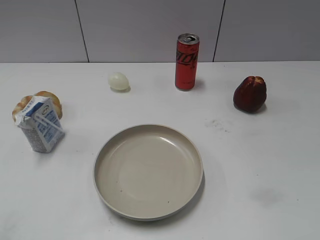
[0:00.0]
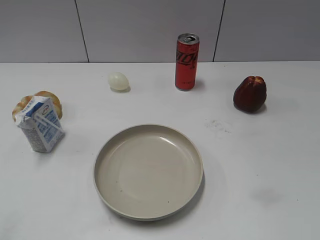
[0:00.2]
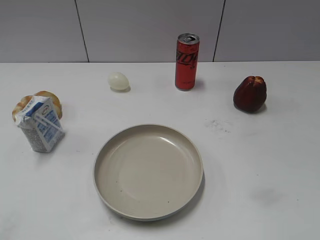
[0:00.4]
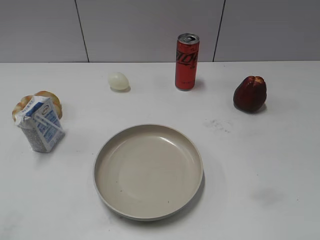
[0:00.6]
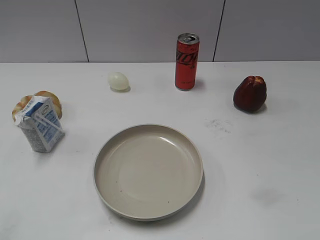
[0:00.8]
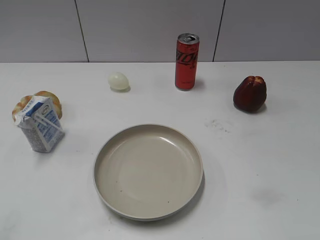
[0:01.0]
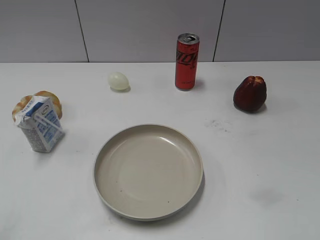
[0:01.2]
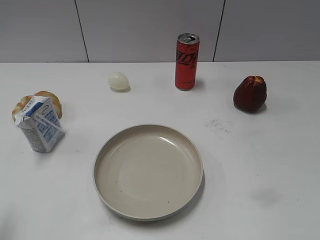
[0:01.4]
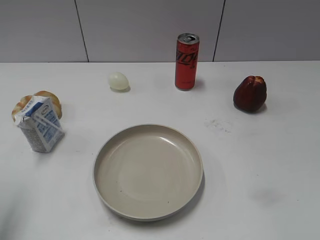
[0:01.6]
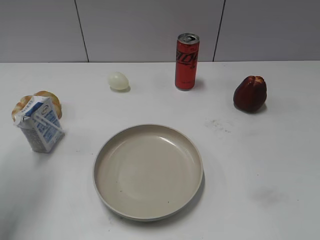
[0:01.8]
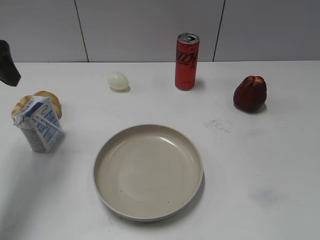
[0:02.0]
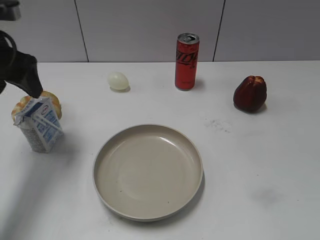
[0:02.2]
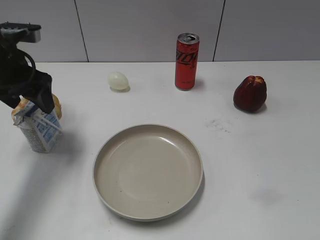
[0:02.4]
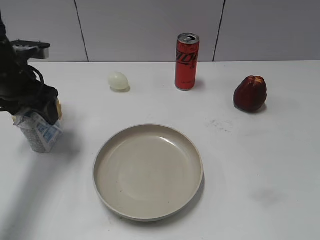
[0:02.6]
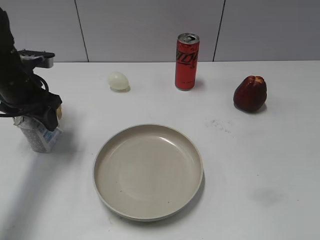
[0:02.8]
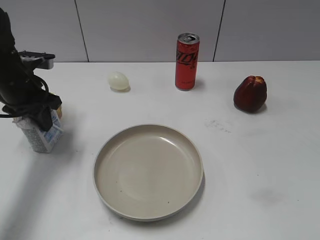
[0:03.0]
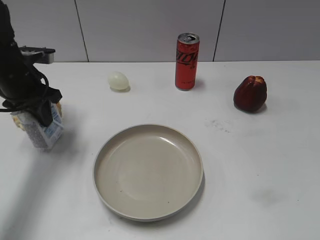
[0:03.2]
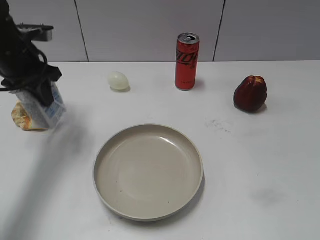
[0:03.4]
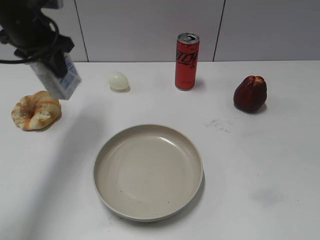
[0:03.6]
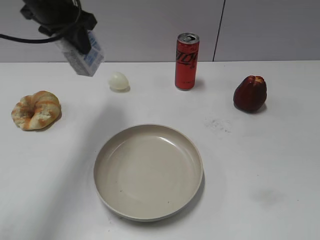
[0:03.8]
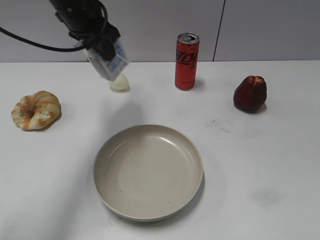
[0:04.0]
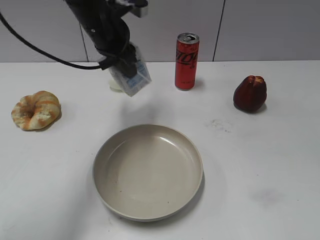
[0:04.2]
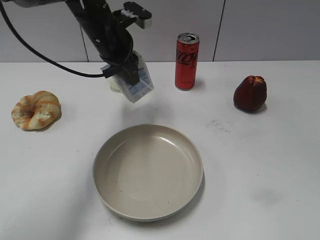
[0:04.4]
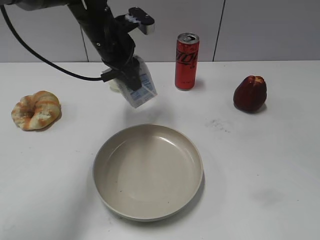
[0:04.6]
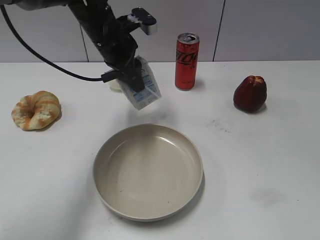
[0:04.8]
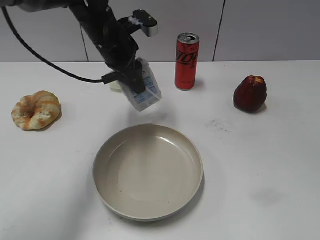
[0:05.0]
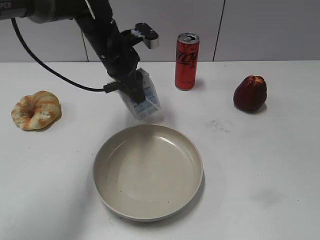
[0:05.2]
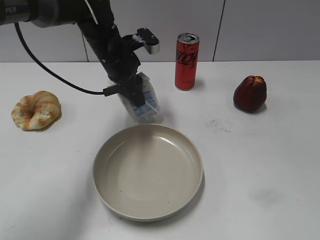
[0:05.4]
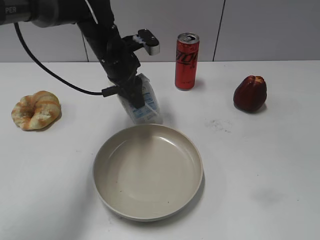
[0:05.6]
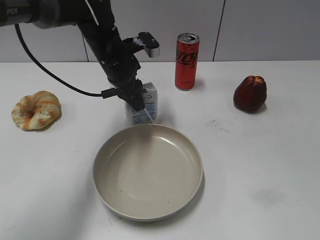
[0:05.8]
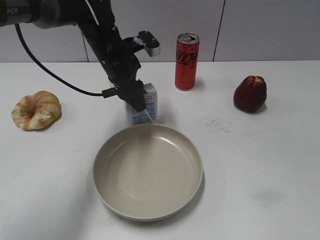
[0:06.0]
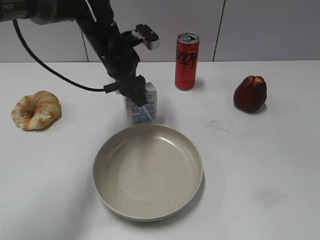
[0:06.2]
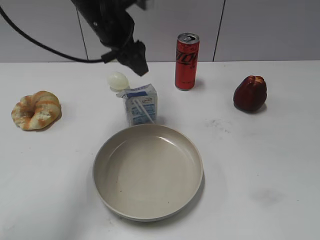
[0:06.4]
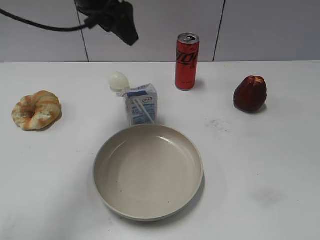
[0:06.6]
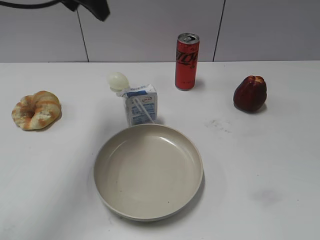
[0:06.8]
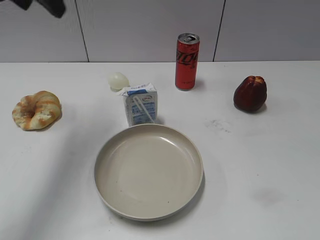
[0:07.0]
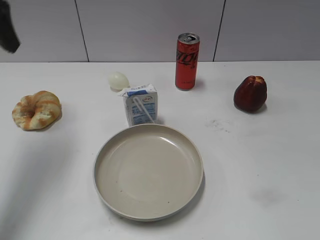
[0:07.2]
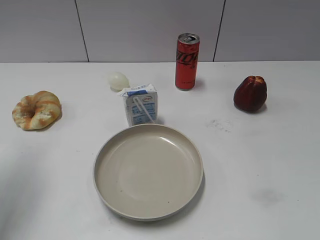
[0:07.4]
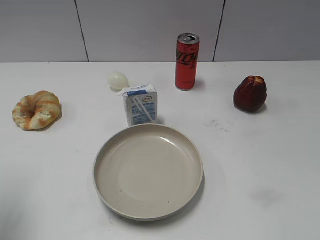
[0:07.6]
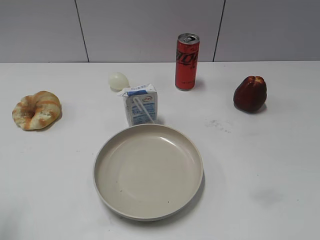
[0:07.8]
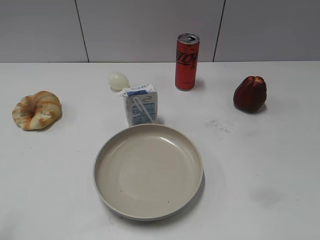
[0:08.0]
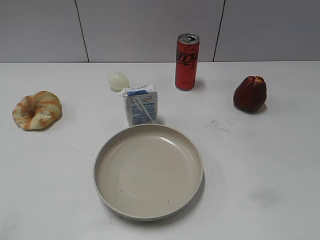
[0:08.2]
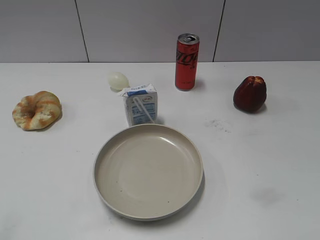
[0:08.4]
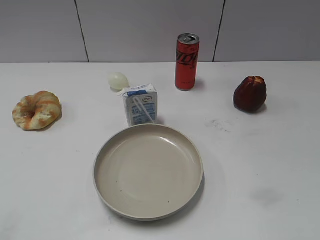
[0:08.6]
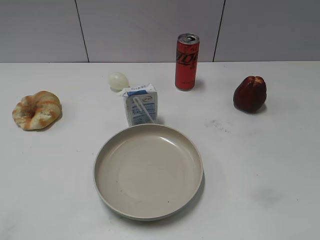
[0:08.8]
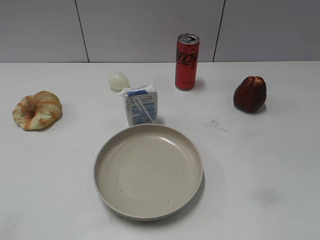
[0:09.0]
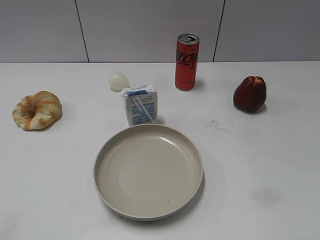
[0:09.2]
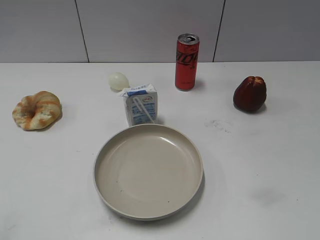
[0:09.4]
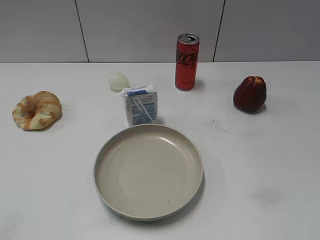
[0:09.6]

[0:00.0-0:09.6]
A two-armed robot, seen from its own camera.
Step, 0:01.0 to 0:03.2: Grasp the milk with left gripper.
Step, 0:03.4 to 0:06.2: Place the milk on the table with left gripper.
0:01.6 to 0:03.2: The left gripper goes some 20 cm forward, downward and to the right, and closes.
0:03.2 to 0:04.8: The left gripper moves to the right, roughly 15 cm.
0:04.8 to 0:06.4: The left gripper heads upward, covering some 5 cm, and opens.
0:06.4 to 0:08.0: The left gripper travels backward and to the left by approximately 40 cm.

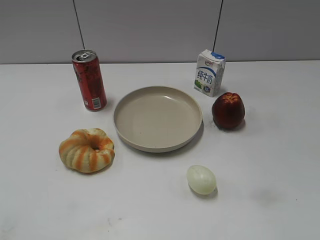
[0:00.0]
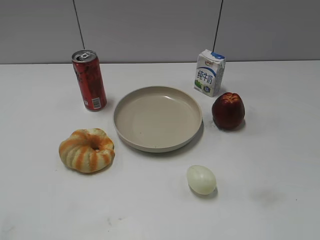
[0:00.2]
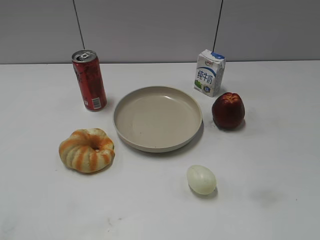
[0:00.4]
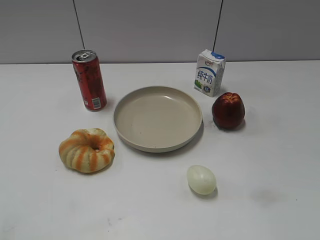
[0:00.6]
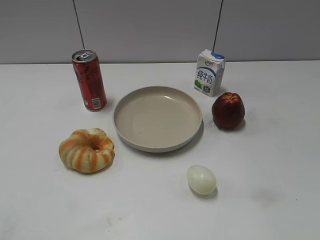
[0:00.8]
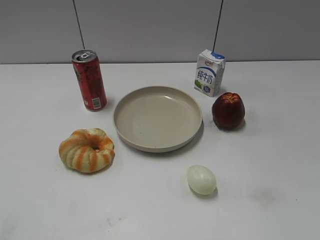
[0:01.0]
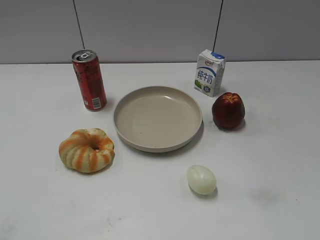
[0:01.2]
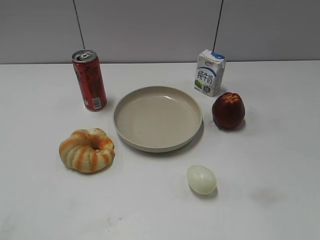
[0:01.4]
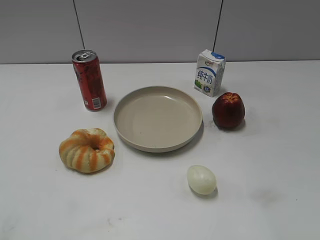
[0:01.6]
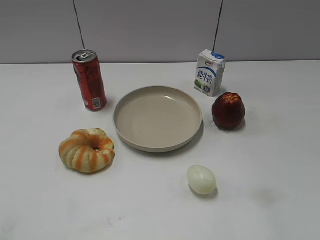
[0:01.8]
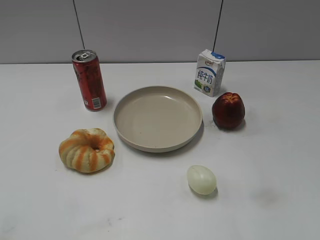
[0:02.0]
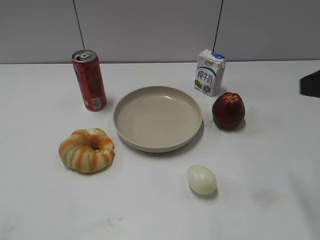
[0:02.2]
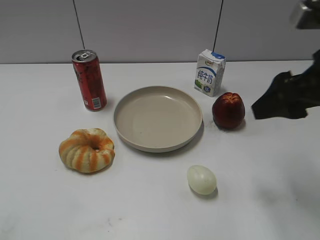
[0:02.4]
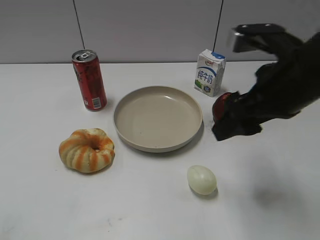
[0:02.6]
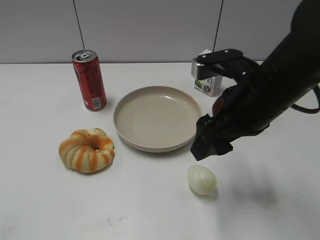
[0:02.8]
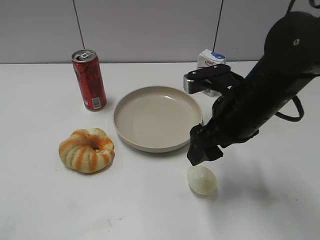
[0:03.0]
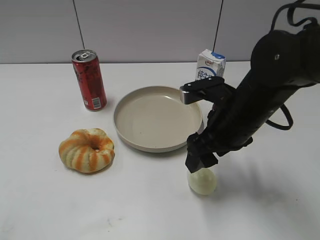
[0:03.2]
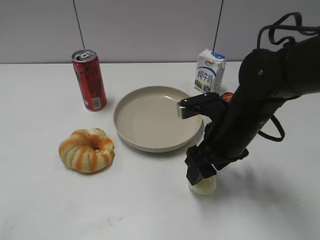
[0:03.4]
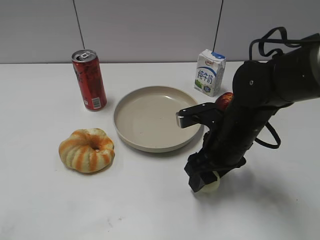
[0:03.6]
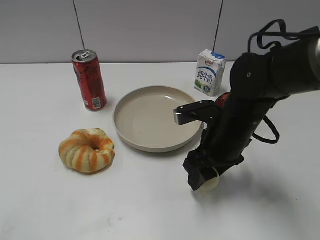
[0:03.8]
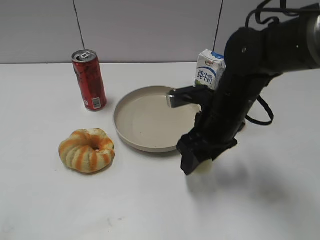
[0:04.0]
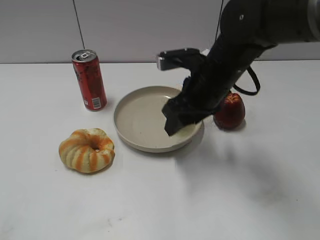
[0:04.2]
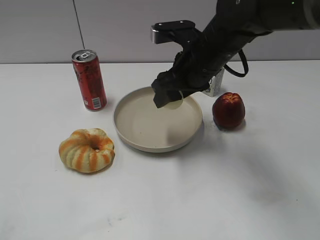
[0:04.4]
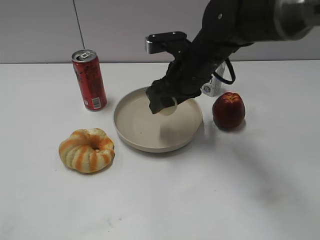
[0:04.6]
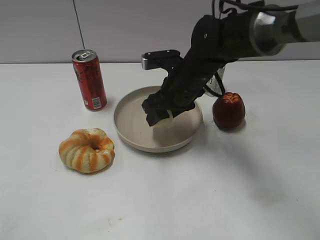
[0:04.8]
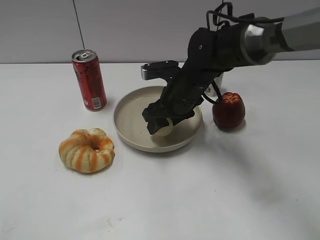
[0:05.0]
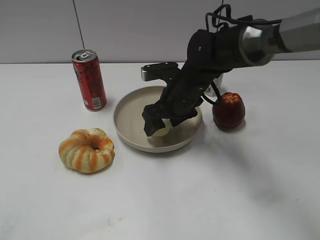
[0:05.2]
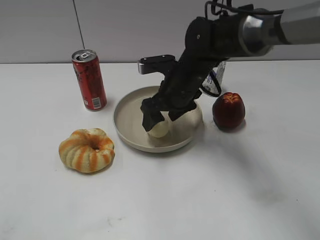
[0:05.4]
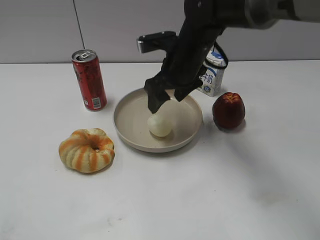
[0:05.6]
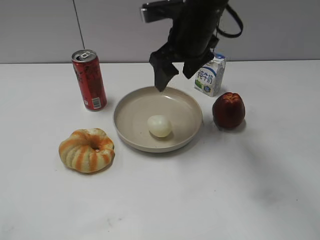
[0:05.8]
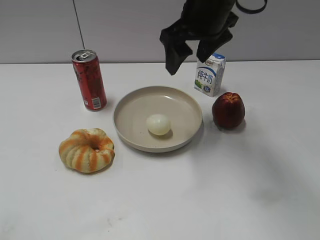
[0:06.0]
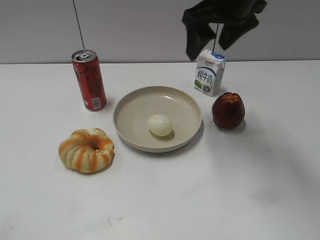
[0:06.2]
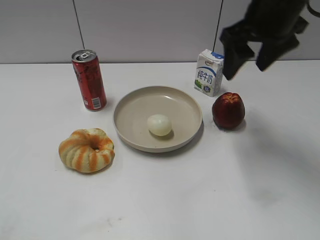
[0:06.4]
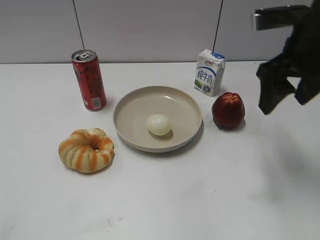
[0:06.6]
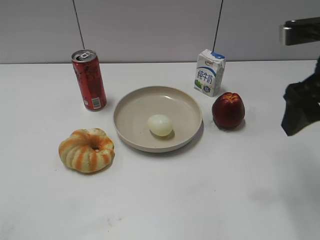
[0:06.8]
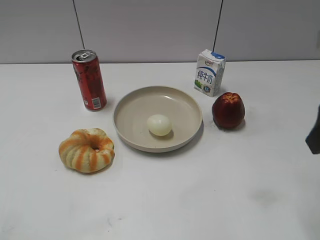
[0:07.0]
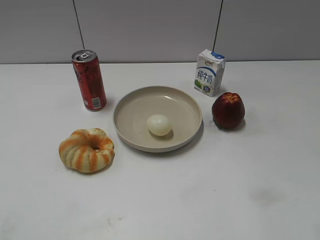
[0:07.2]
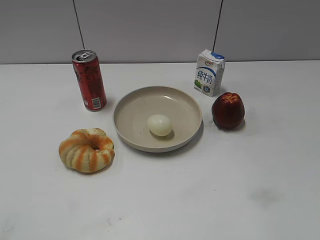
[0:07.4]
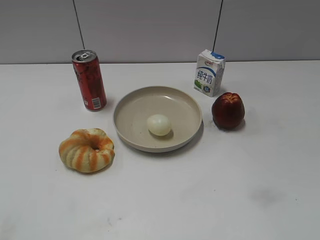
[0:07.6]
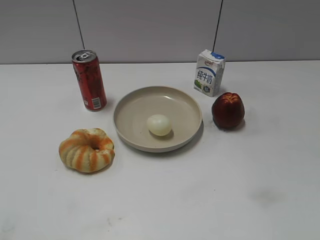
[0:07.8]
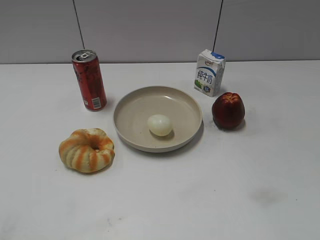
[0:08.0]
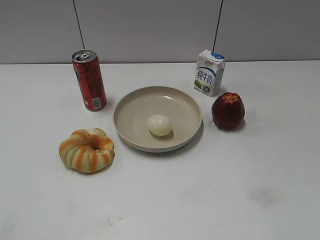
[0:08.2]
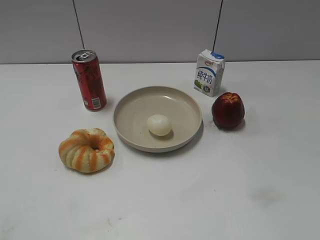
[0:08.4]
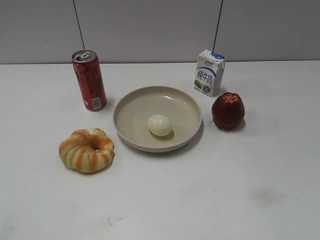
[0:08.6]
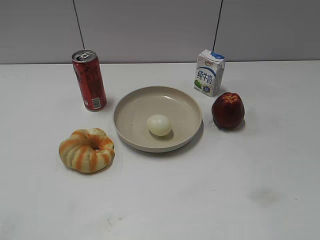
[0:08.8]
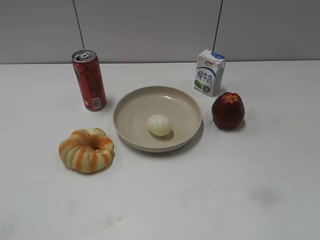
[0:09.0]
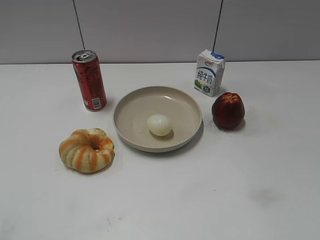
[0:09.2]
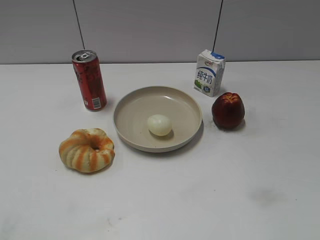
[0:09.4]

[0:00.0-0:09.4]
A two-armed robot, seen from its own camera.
Step, 0:01.2 to 0:03.8: Grasp the egg with right gripper.
Step, 0:04.0 to 0:05.4: Place the egg on the plate with right gripper.
0:01.6 to 0:03.2: The right gripper is displaced forward, to the left and downward by some 30 cm.
0:03.2 to 0:04.8: The right gripper is displaced forward and to the left by some 10 cm, and closes.
0:04.8 to 0:06.2: The right gripper travels upward by about 15 cm, and opens its fingers.
0:06.2 to 0:07.8: The right gripper travels backward and to the right by about 40 cm.

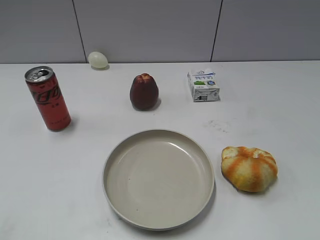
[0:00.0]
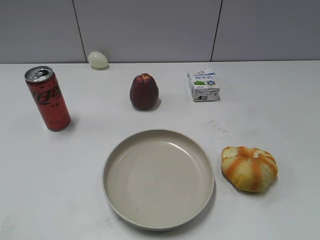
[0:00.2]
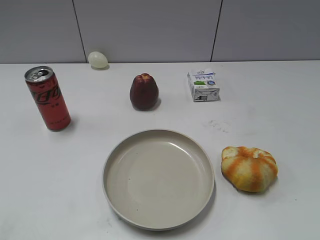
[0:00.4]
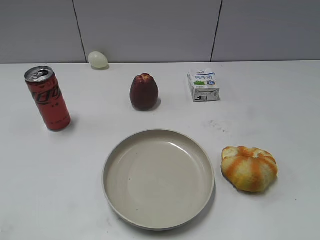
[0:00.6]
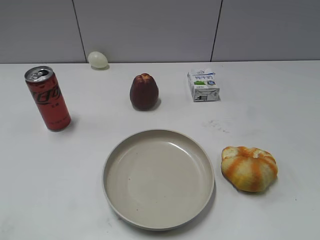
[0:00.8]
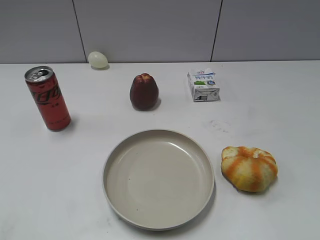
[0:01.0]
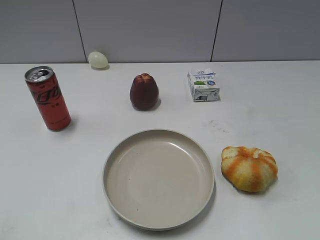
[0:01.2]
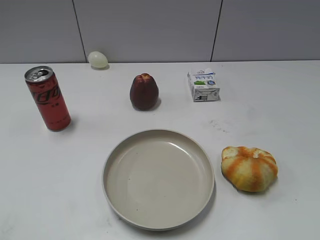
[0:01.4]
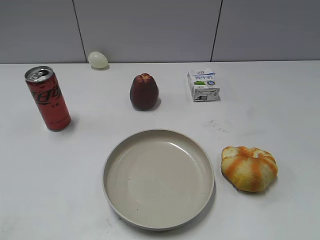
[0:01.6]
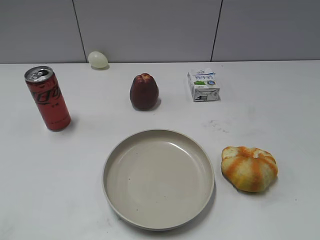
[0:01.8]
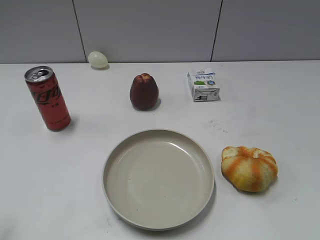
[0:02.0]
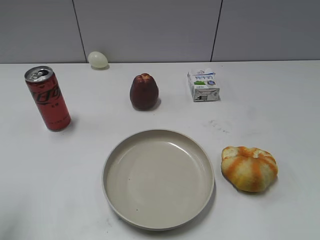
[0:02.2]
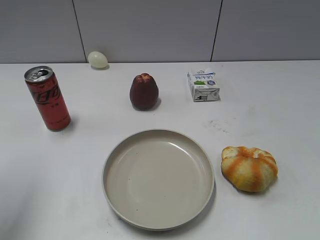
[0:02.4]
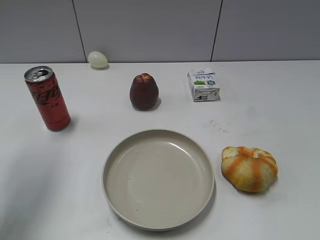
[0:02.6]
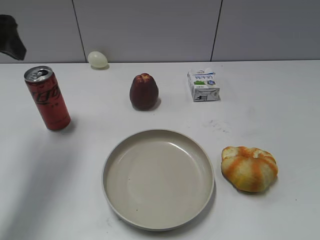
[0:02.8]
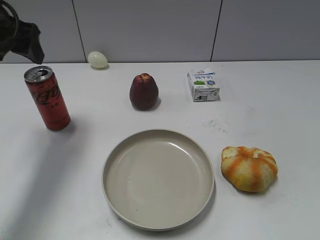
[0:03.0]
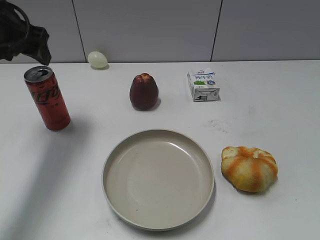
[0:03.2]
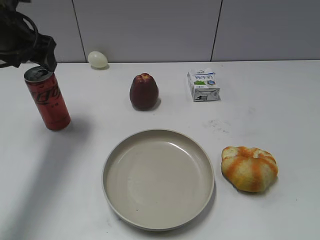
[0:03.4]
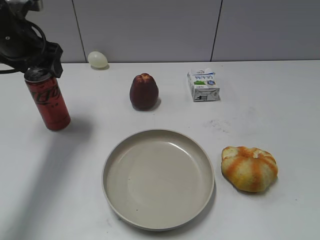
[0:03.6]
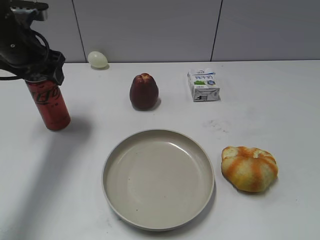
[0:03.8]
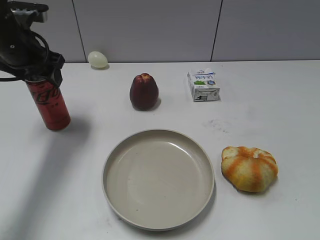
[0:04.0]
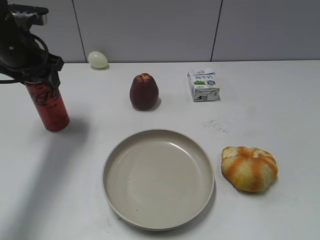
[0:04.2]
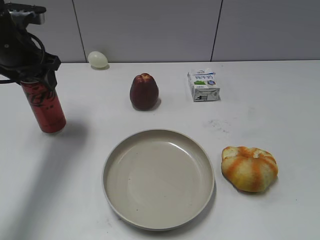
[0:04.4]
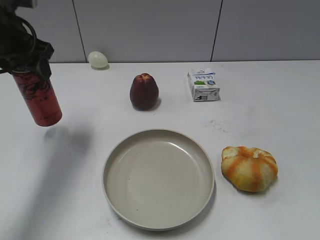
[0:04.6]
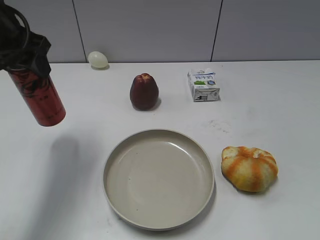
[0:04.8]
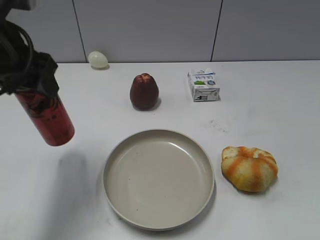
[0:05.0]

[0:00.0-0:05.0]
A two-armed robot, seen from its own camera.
Step, 0:01.6 to 0:04.2: Grasp the cola with left gripper.
0:01.6 to 0:03.4: The left gripper shifts roughly 35 cm forward, and opens its fingers.
0:03.4 to 0:05.0: The left gripper moves backward, some 10 cm, and closes its fingers.
